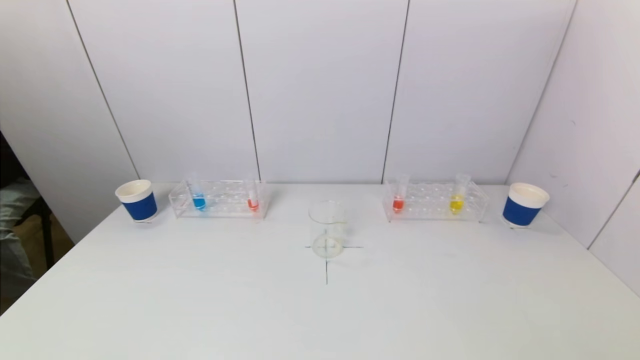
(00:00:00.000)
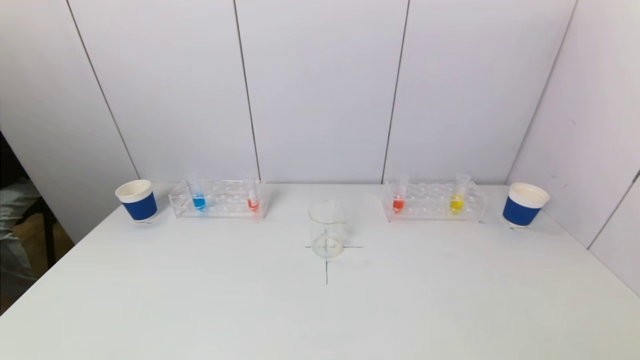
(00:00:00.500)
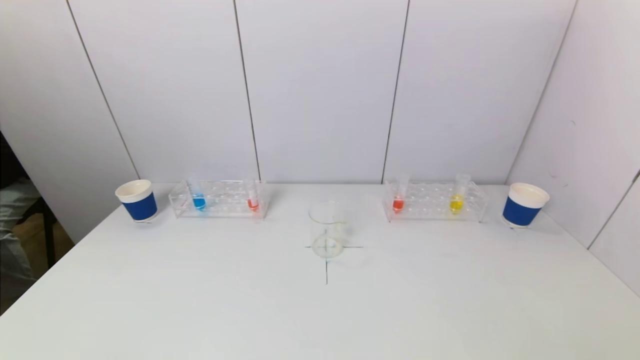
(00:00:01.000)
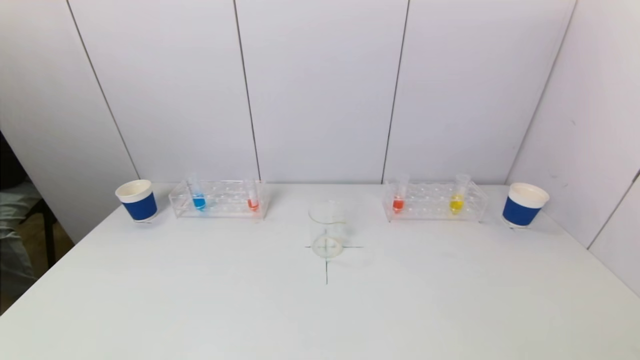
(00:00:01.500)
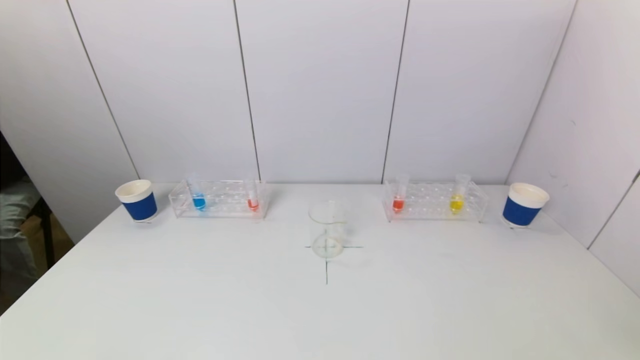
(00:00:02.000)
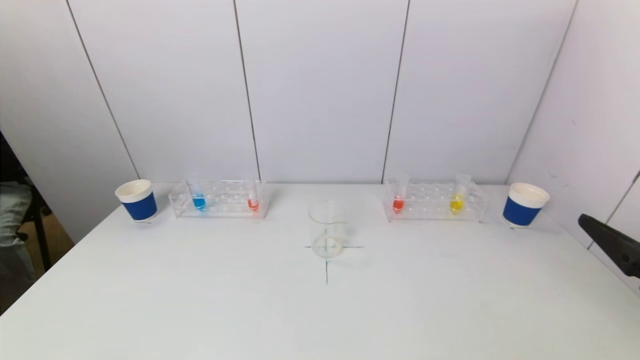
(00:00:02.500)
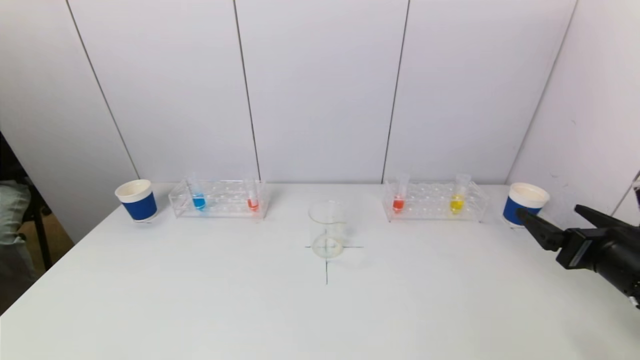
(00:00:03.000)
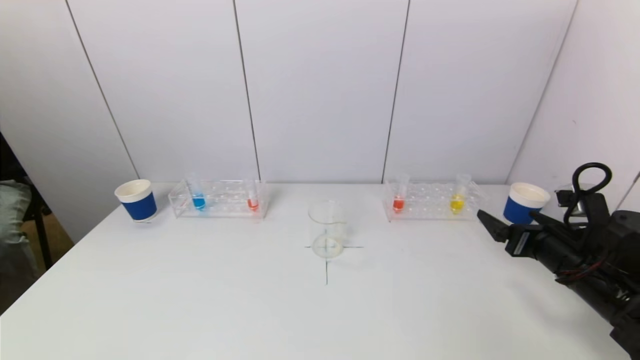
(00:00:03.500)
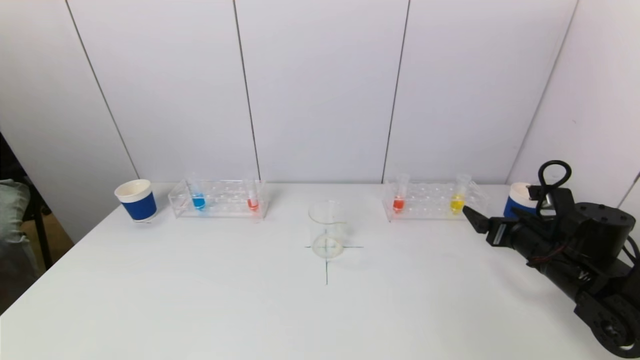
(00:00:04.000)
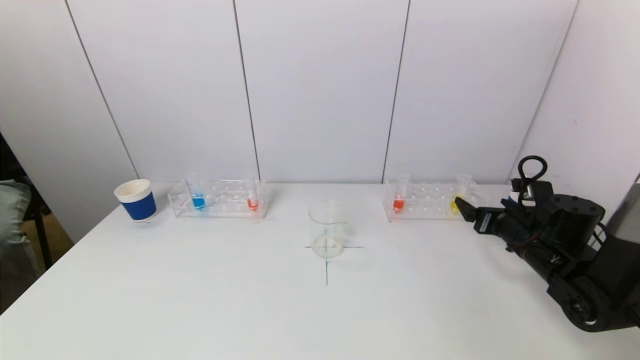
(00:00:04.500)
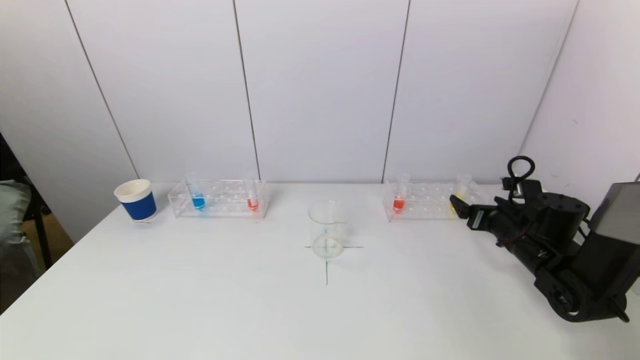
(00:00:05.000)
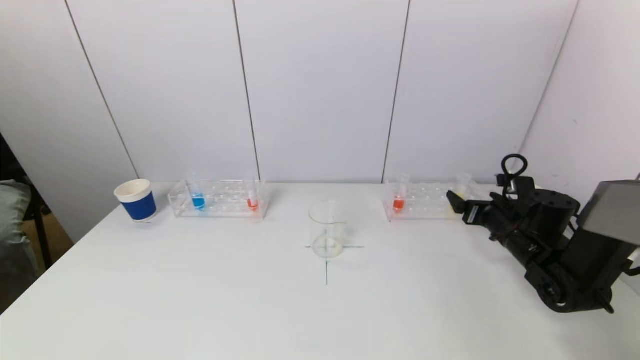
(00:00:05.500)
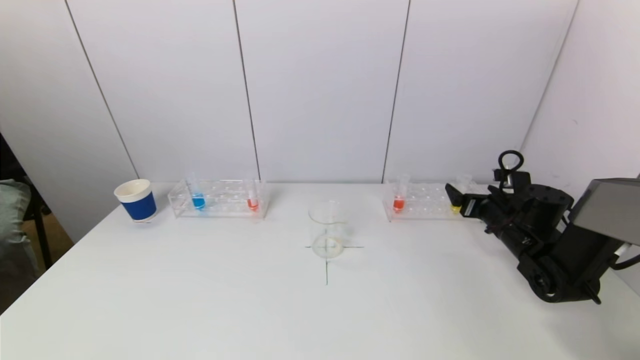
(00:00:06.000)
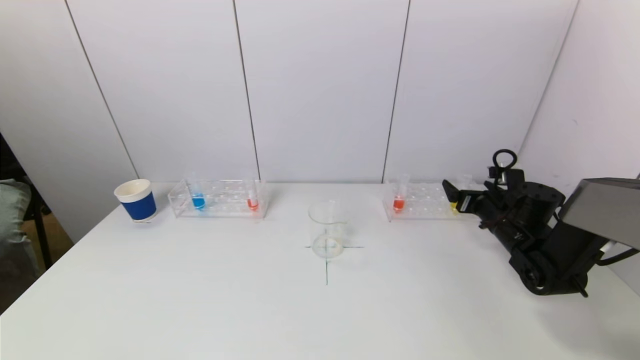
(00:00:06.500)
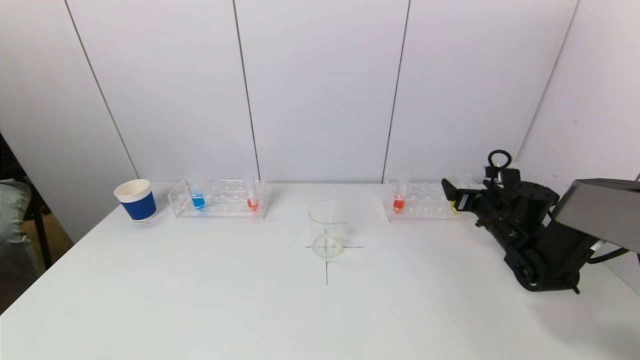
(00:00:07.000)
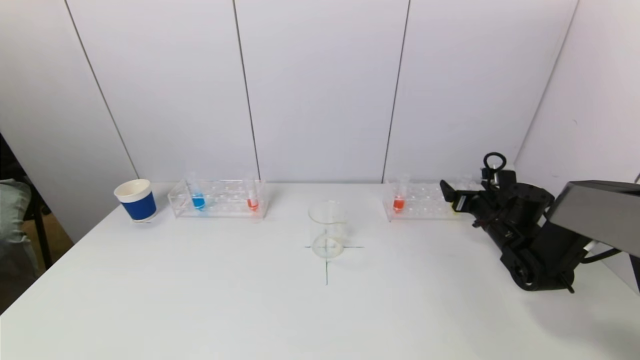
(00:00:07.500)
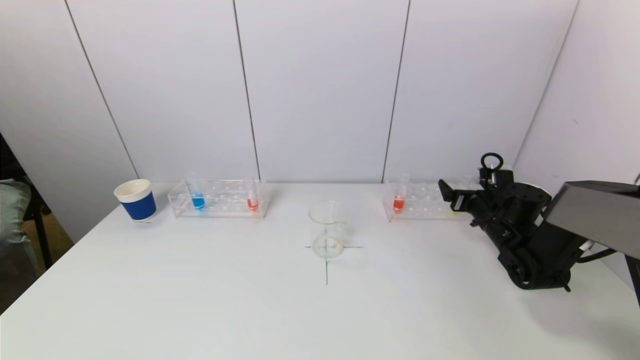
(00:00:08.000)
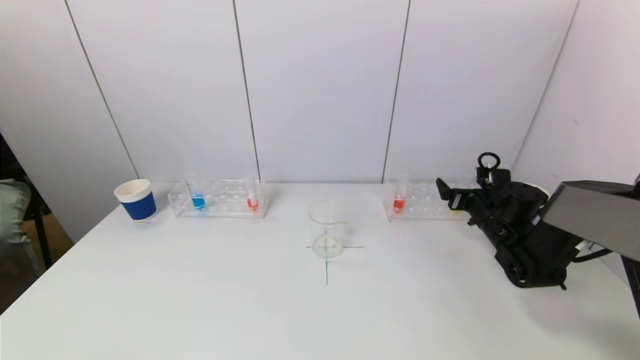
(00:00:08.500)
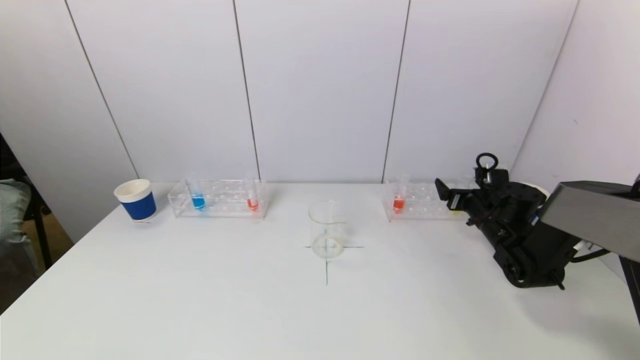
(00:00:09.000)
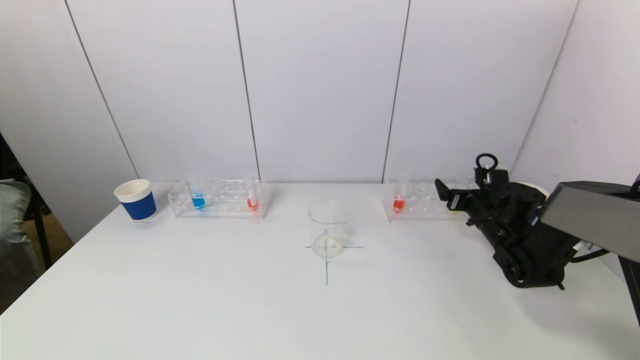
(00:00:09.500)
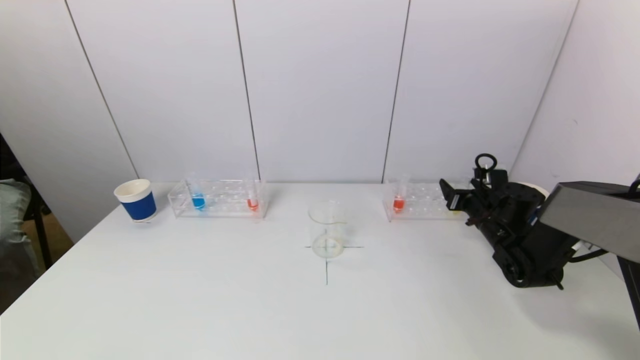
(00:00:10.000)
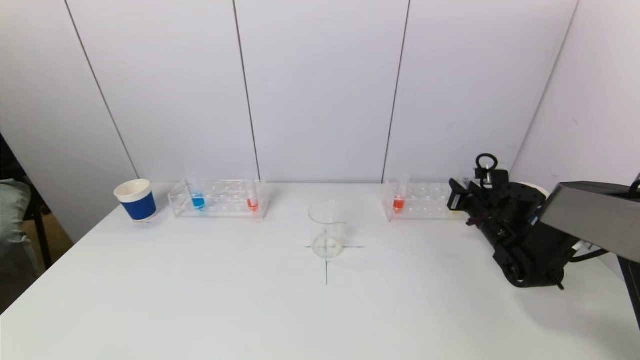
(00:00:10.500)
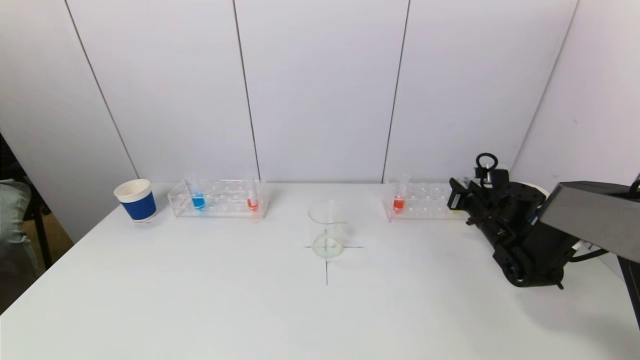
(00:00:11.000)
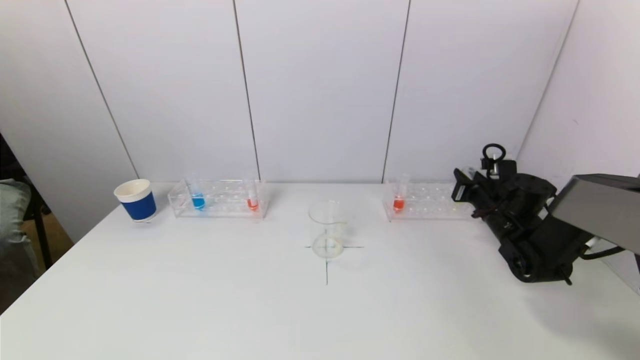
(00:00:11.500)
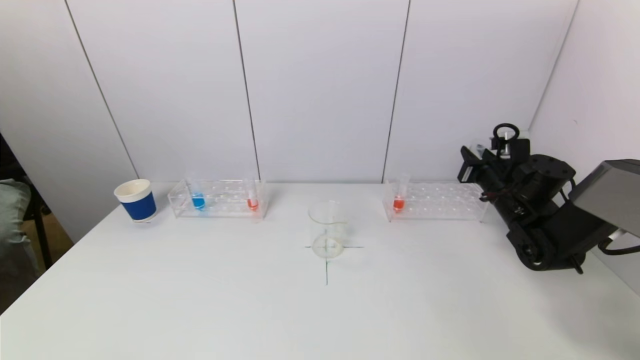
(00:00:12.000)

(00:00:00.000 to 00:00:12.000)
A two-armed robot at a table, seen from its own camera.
Task of the whole recording: pick up a test tube with pigment on left test tube rack and a test tube with pigment on right test tube rack by grippers and pour them into the beaker.
Step, 00:00:00.000 - 00:00:10.500: Grasp the yellow reagent with the right gripper.
00:00:02.000 - 00:00:04.000: The right gripper moves forward and downward, approximately 30 cm.
00:00:04.000 - 00:00:06.000: The right gripper goes about 10 cm forward.
00:00:06.000 - 00:00:08.000: There are only small adjustments of the grippers.
00:00:08.000 - 00:00:10.000: Neither gripper changes place.
00:00:10.000 - 00:00:12.000: The right gripper shifts approximately 5 cm upward, and closes up.

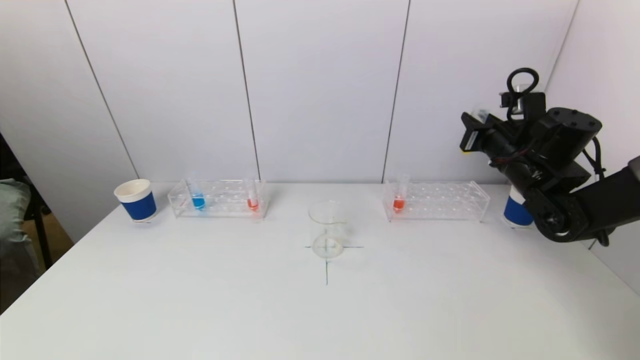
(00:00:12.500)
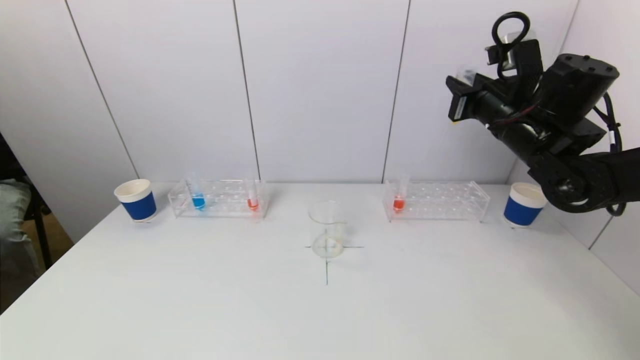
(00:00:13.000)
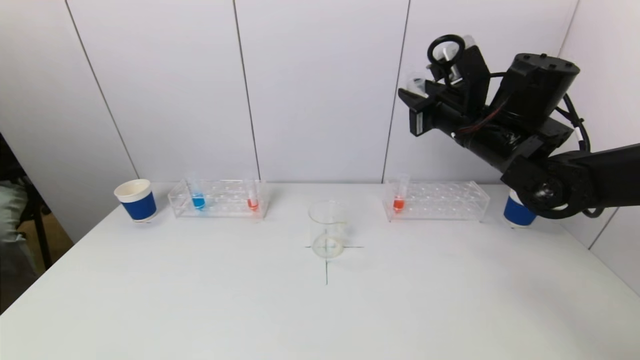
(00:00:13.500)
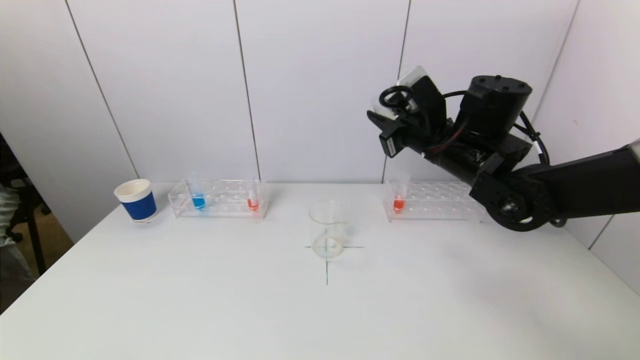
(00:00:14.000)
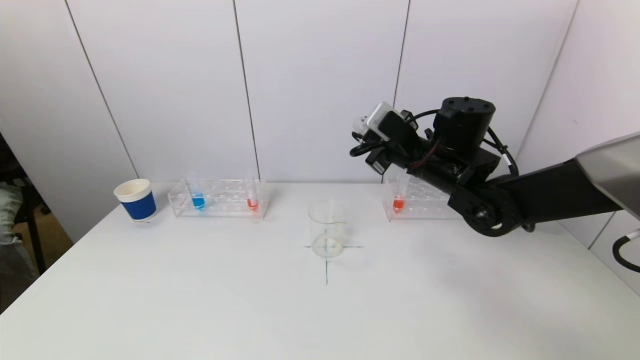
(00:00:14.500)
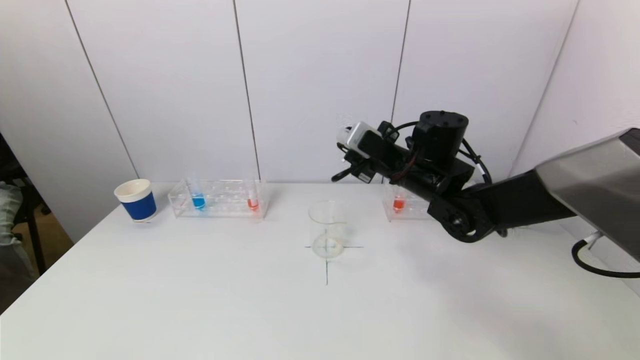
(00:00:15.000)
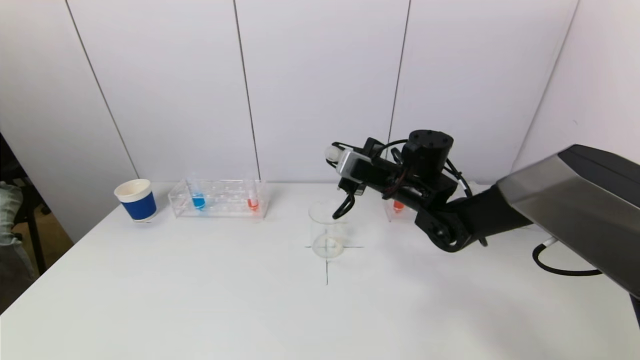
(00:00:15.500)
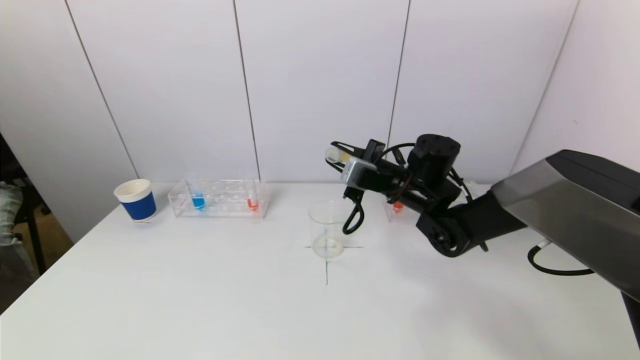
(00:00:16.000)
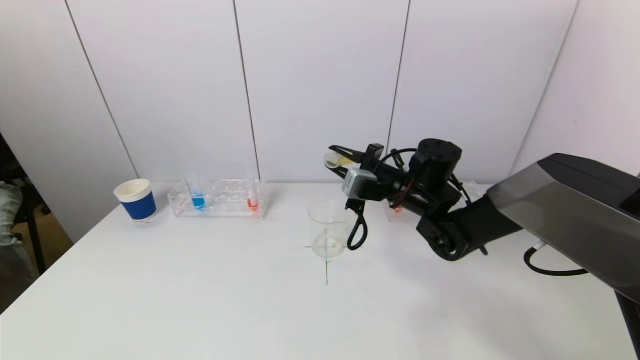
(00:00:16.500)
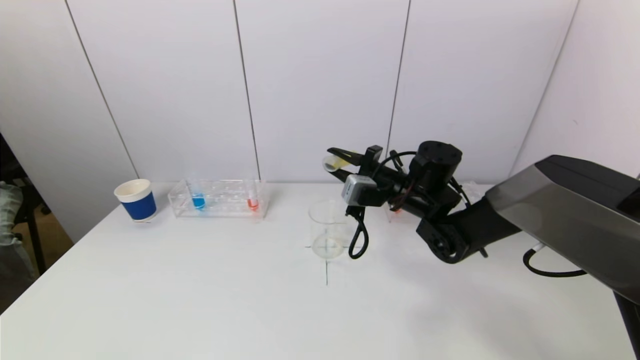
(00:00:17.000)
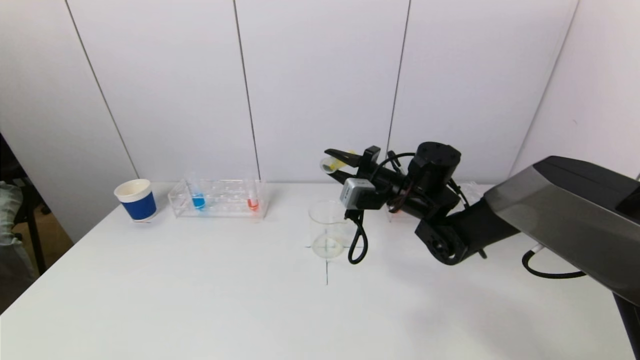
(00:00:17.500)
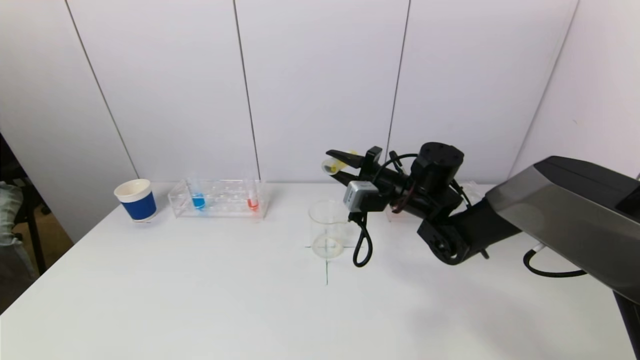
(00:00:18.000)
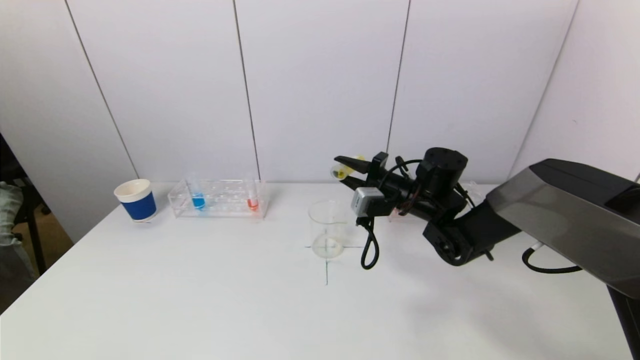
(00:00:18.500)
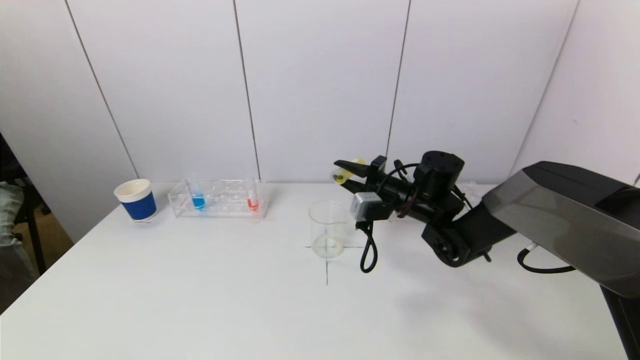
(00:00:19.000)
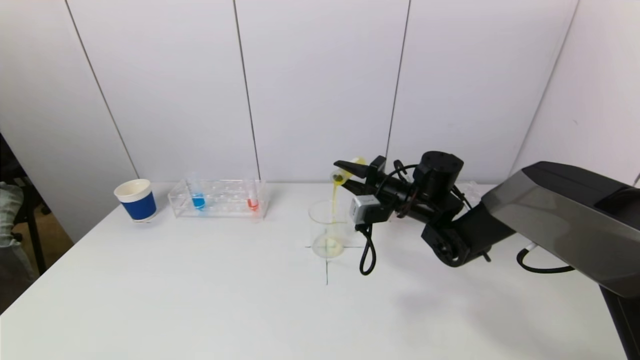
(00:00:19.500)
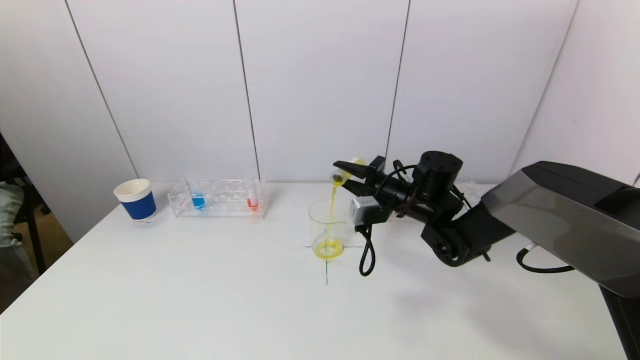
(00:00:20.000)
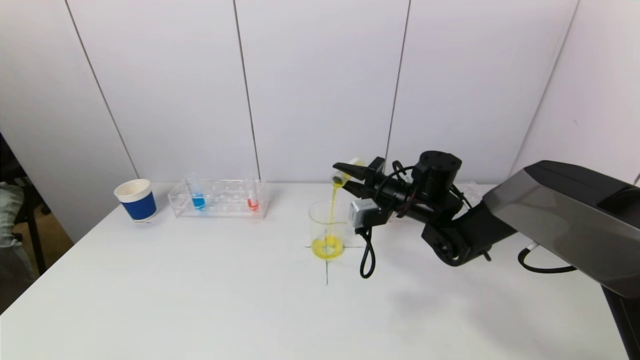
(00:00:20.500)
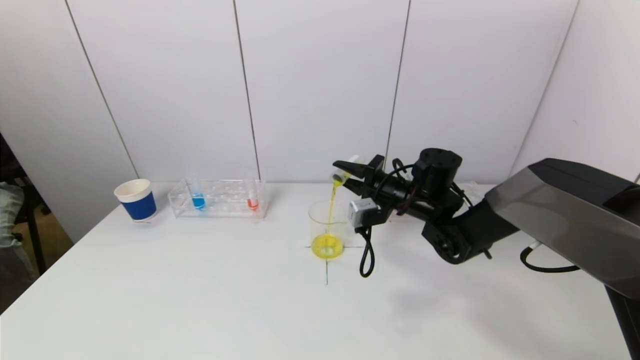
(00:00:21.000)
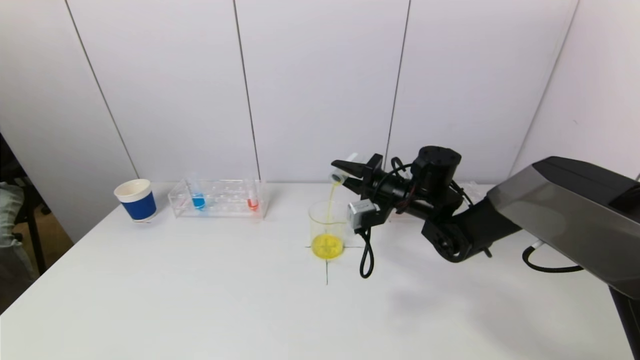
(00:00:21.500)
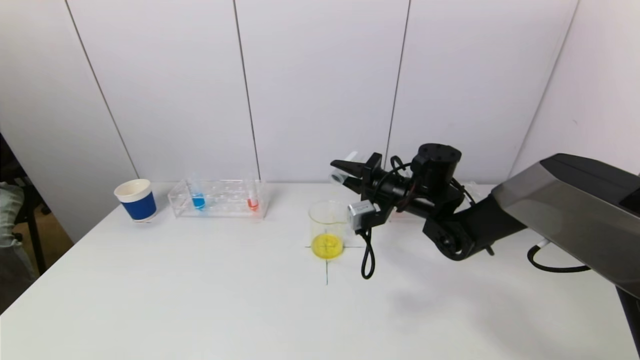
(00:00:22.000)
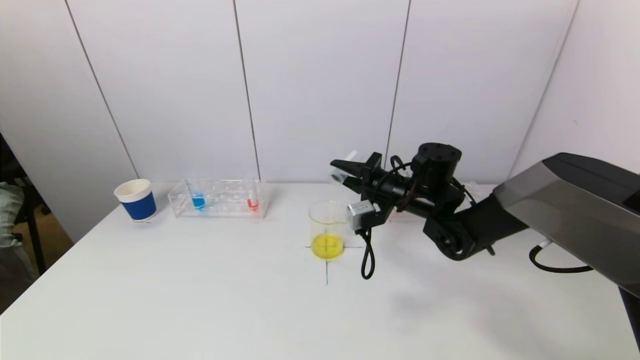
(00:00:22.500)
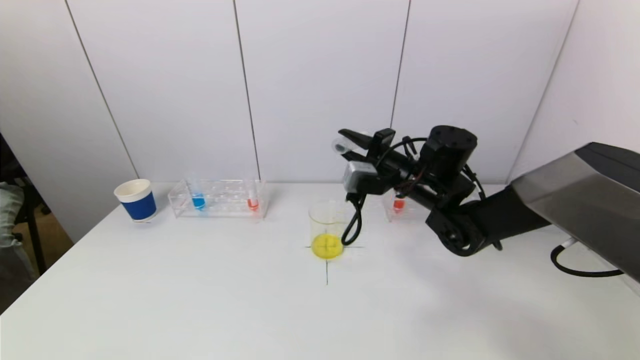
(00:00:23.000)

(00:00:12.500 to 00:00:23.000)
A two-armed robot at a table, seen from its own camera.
Task of the whole recording: pick up a test tube with pigment on left test tube rack and a test tube with pigment on right test tube rack by grippers and pour them into the beaker.
Step, 00:00:12.500 - 00:00:22.000: Pour the yellow reagent into the graduated cylinder with the right gripper.
00:00:12.500 - 00:00:14.500: The right gripper heads to the left, covering about 15 cm.
00:00:14.500 - 00:00:16.500: The right gripper moves downward, about 5 cm.
00:00:16.500 - 00:00:19.000: The grippers stay close to where they were, moving slightly.
00:00:19.000 - 00:00:21.000: The grippers move only a little.
00:00:21.000 - 00:00:23.000: The right gripper goes approximately 5 cm upward.
